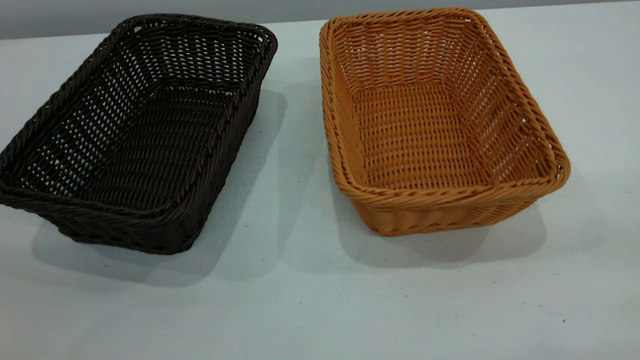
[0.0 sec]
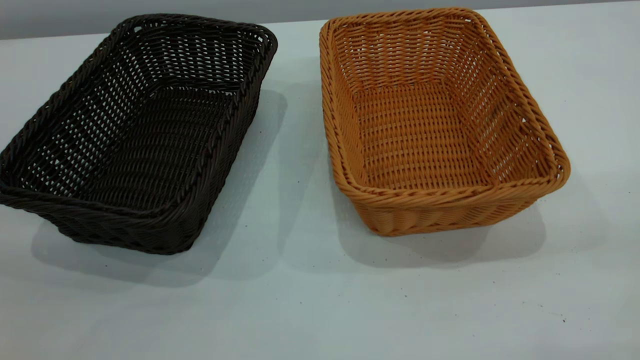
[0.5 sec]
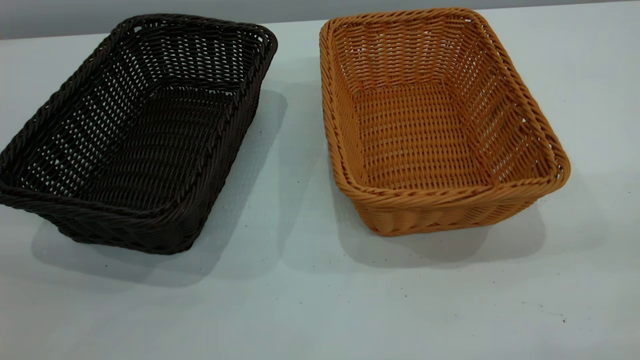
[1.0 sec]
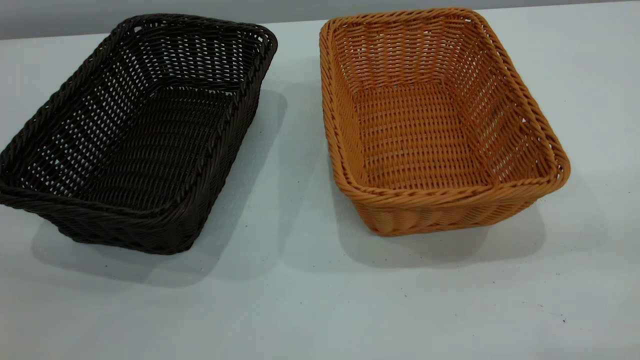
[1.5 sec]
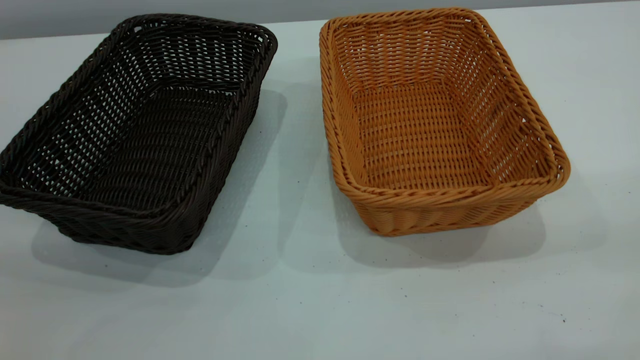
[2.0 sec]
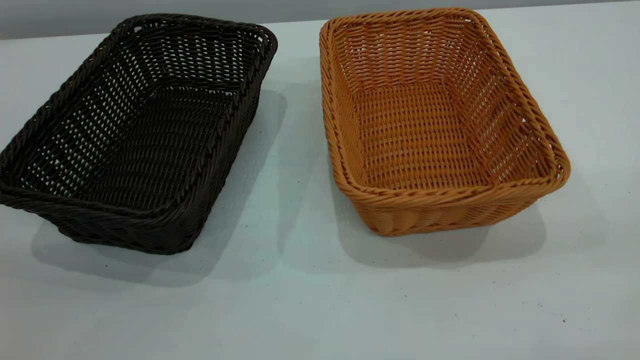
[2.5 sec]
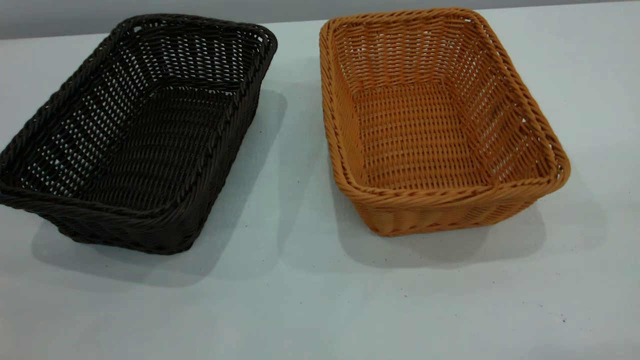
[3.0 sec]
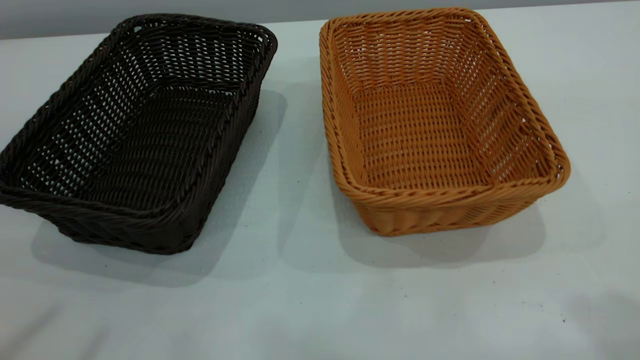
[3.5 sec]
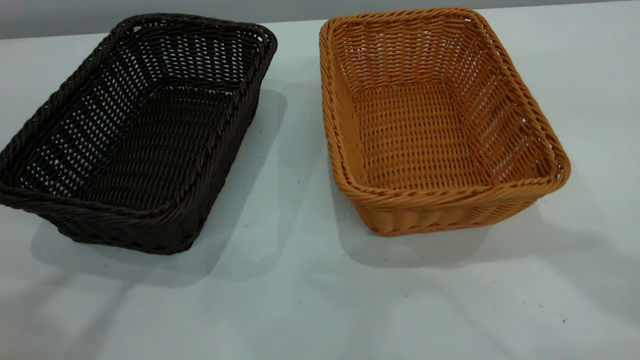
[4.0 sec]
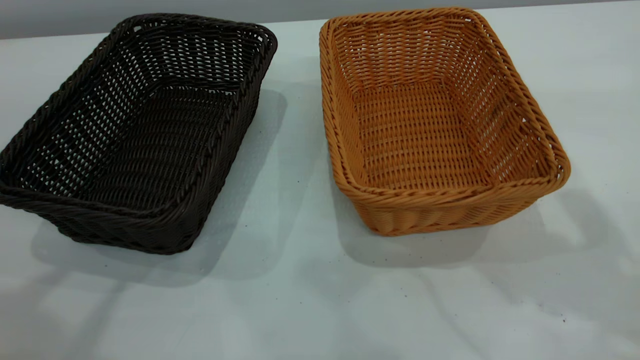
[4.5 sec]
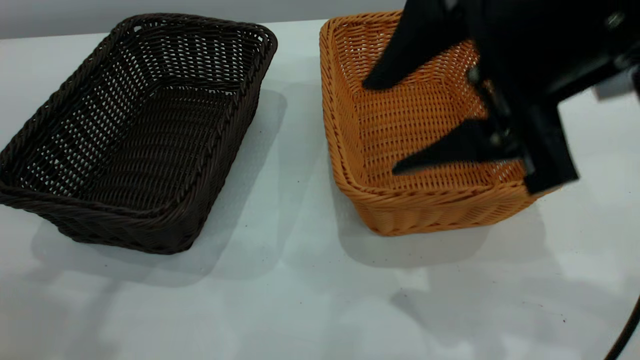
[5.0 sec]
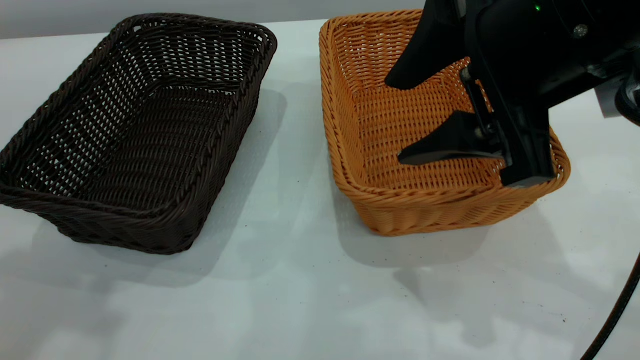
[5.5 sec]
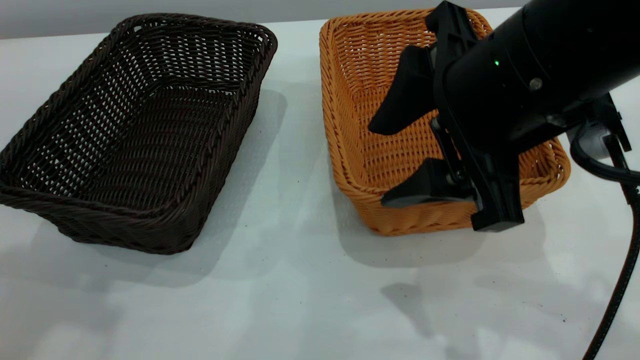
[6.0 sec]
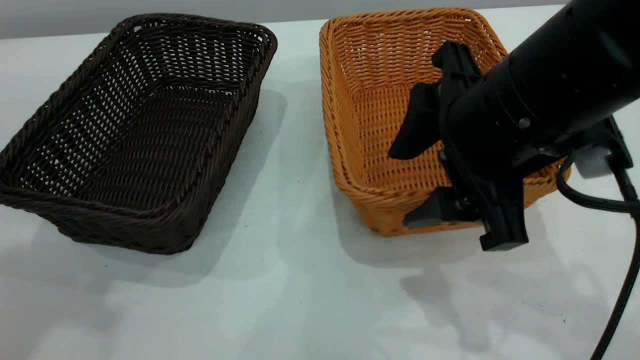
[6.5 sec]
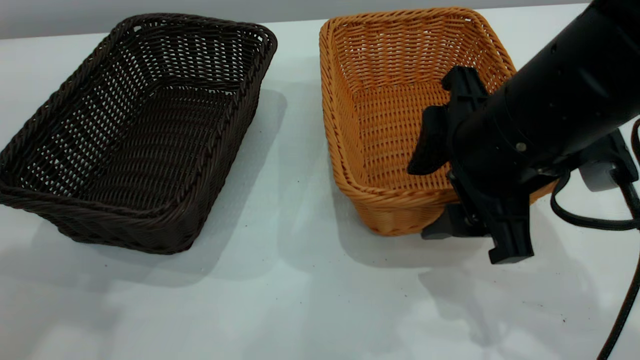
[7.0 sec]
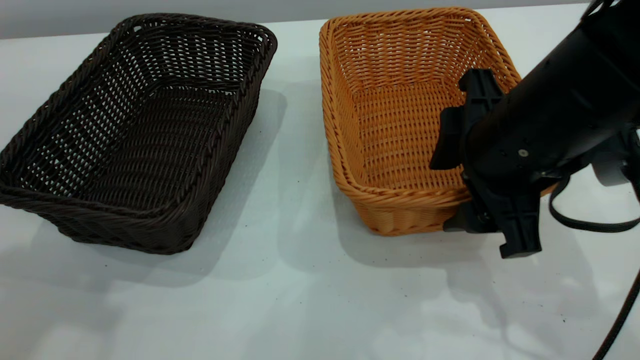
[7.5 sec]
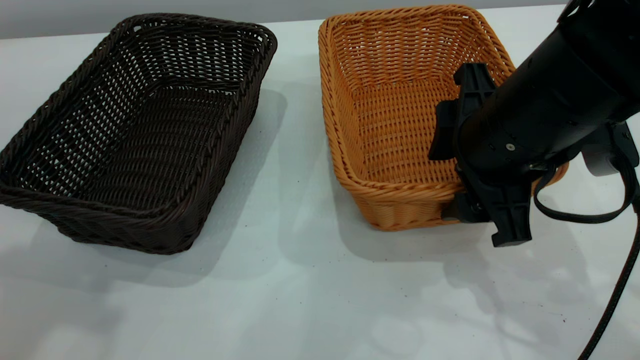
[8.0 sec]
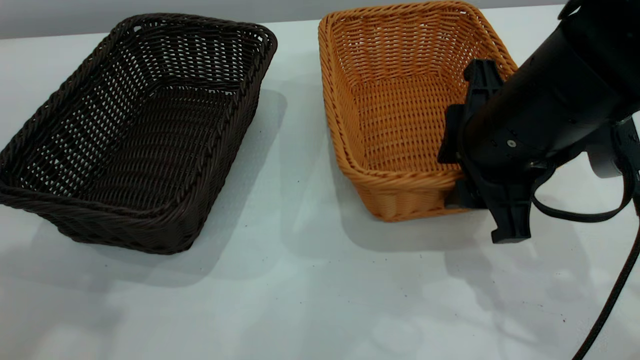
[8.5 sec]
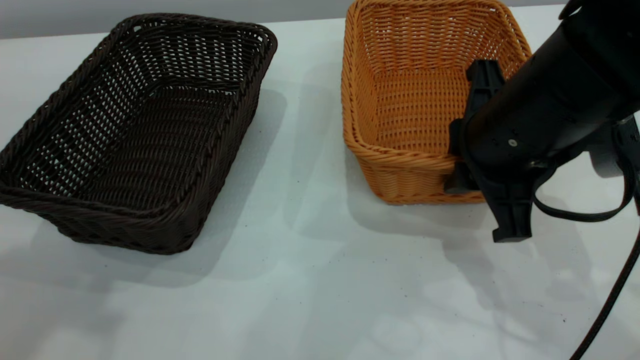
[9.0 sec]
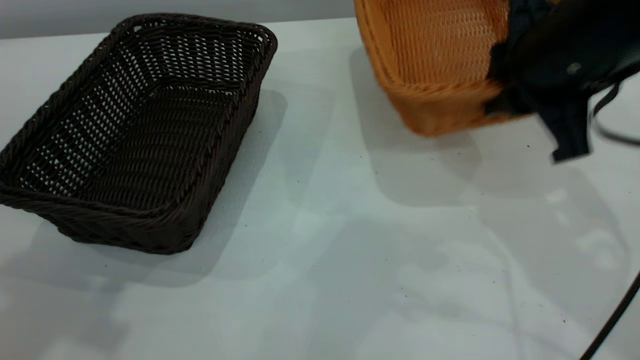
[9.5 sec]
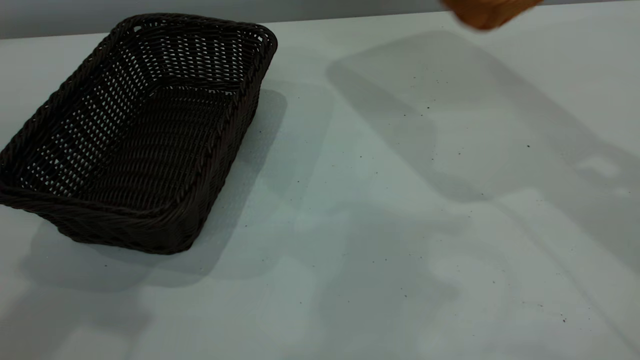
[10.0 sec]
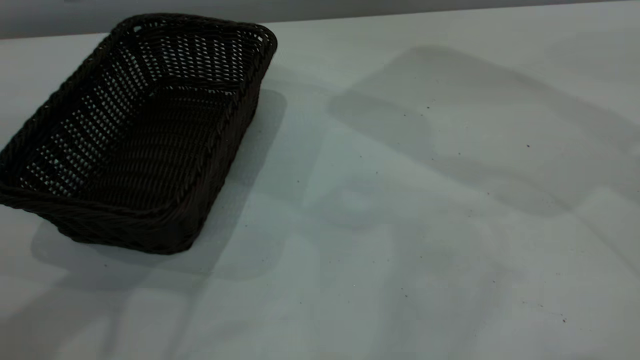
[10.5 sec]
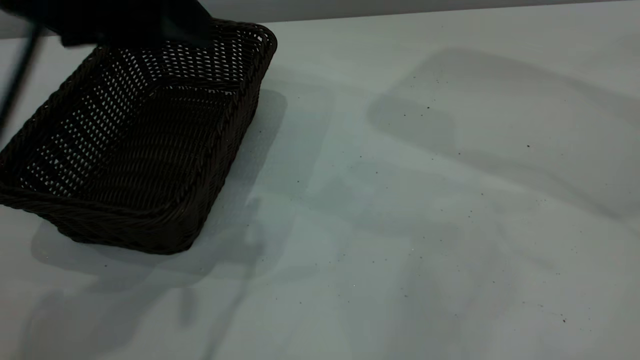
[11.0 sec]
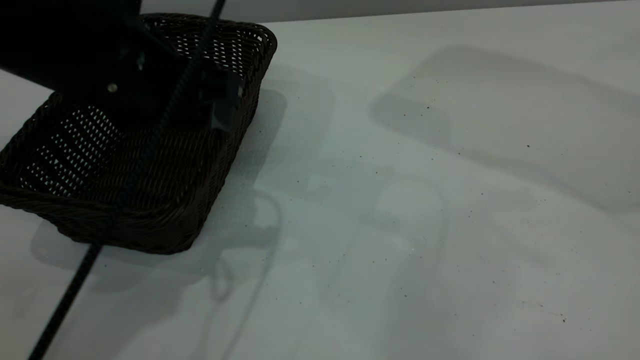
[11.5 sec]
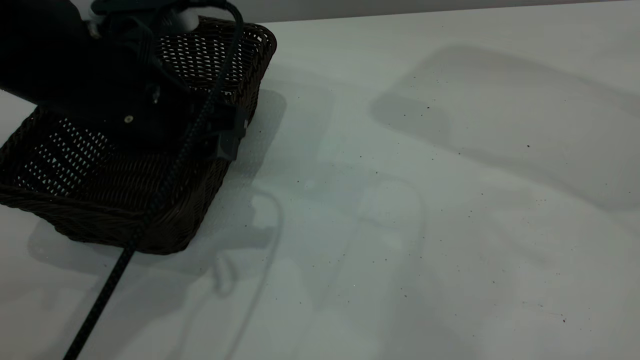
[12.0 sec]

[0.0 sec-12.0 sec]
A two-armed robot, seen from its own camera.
Task of the whole recording: the left gripper grasp the black basket and place it in the center of the table, the right gripper grasp the brown basket and place it inside the black one.
Step, 0.0 sec to 9.5 sec: Pick up the light basket with the right gripper.
0.0 sec to 2.0 sec: Neither gripper changes place.
4.0 sec to 6.0 sec: The right gripper is displaced downward and to the left by about 20 cm.
6.0 sec to 8.0 sec: The right gripper shifts about 5 cm downward.
8.0 sec to 10.0 sec: The right gripper goes some 15 cm upward and to the right, and closes its fingers.
10.0 sec to 12.0 sec: The right gripper is displaced to the right and upward by approximately 15 cm, while the left gripper moves downward, to the right and forward, some 25 cm.

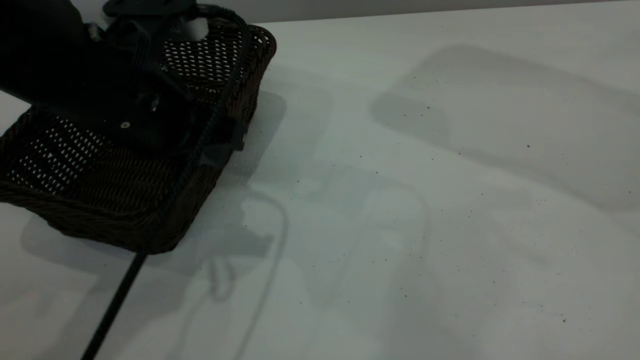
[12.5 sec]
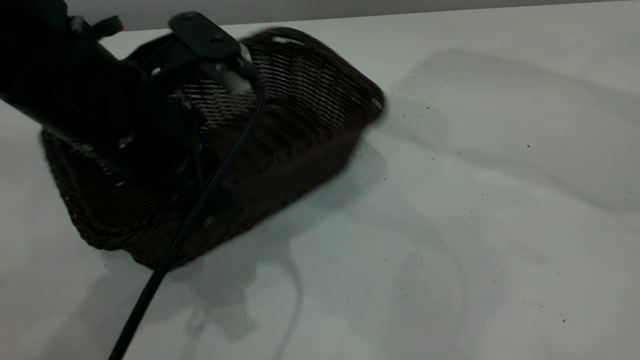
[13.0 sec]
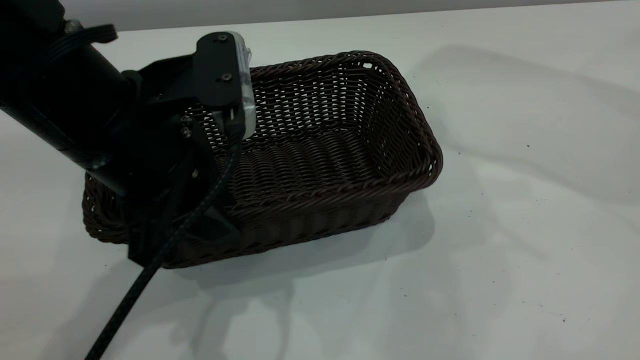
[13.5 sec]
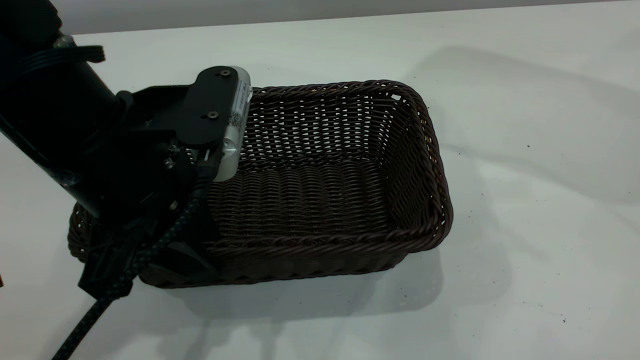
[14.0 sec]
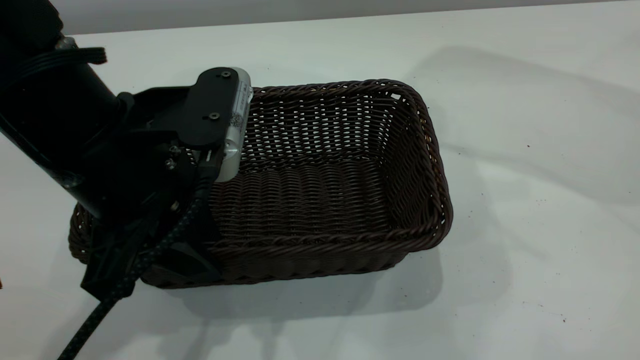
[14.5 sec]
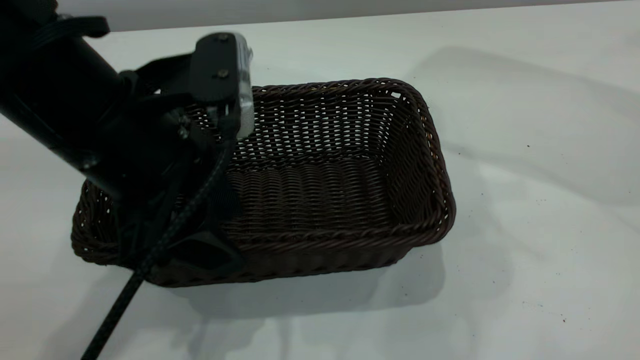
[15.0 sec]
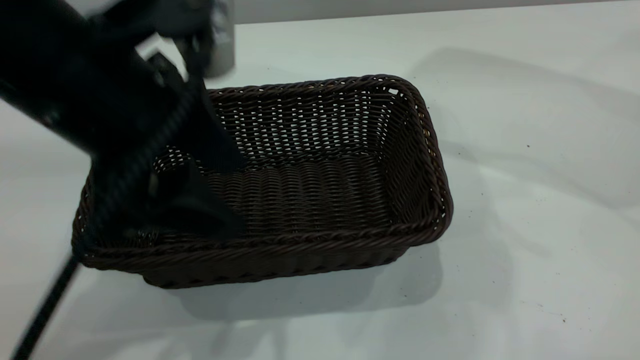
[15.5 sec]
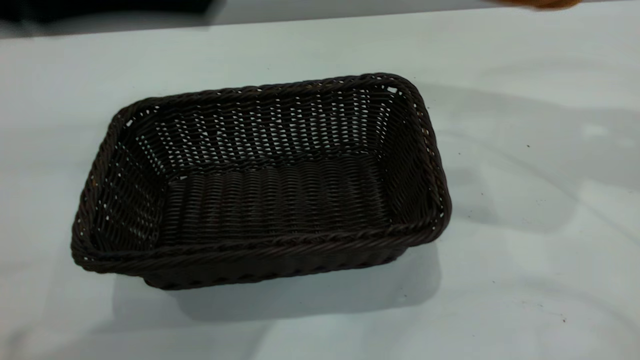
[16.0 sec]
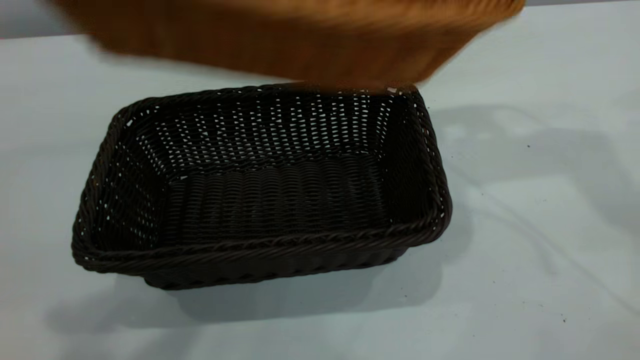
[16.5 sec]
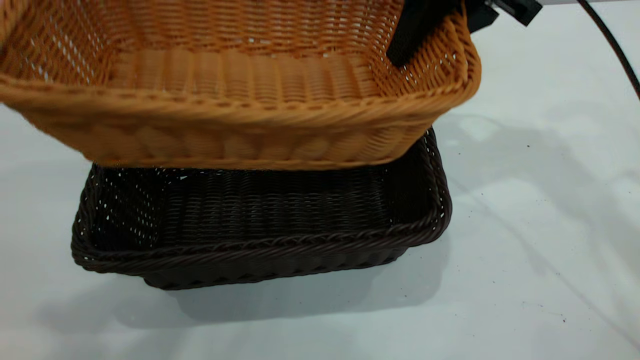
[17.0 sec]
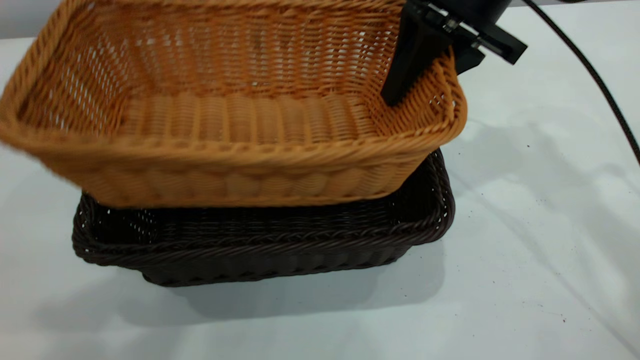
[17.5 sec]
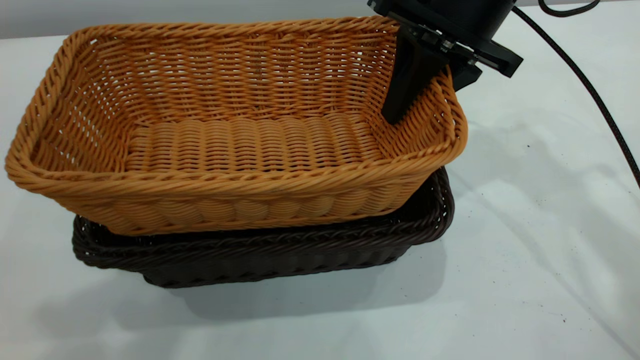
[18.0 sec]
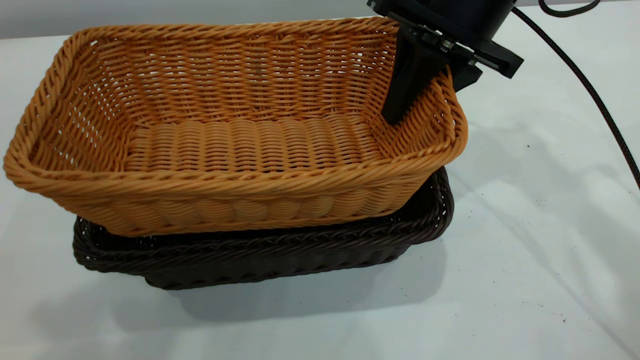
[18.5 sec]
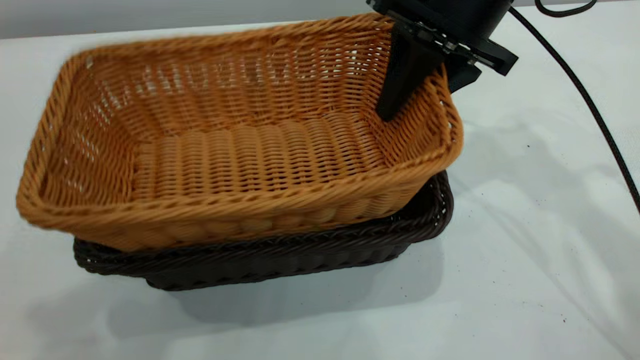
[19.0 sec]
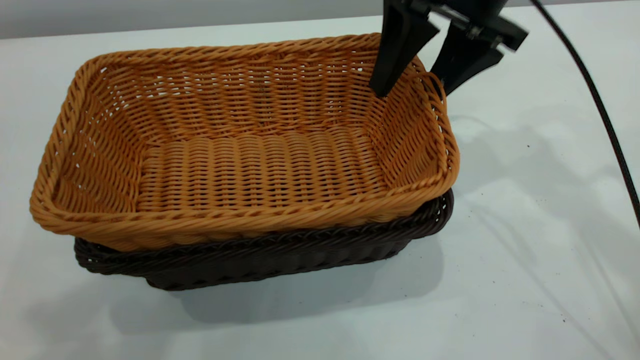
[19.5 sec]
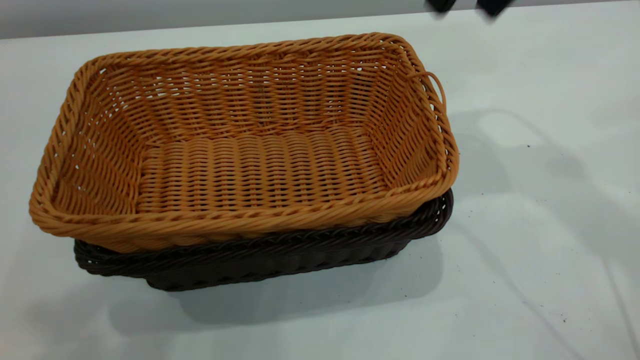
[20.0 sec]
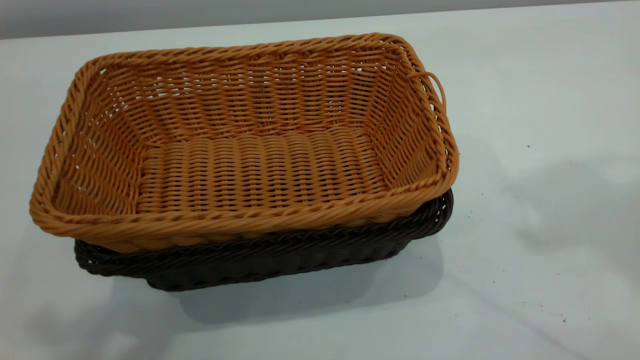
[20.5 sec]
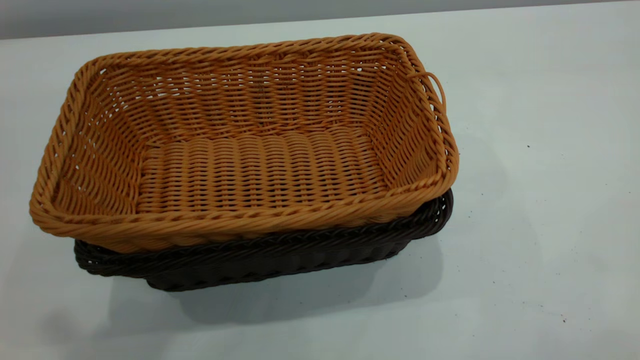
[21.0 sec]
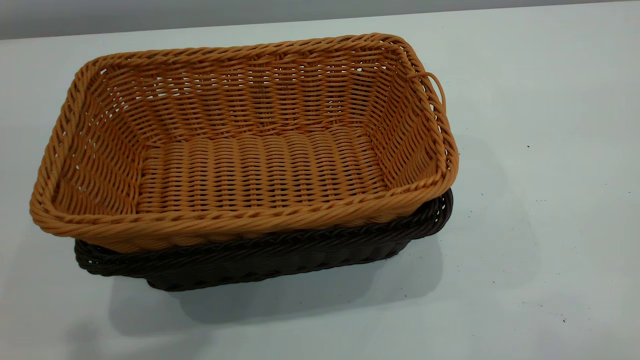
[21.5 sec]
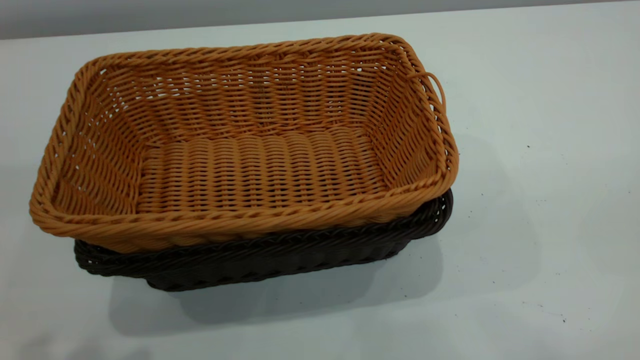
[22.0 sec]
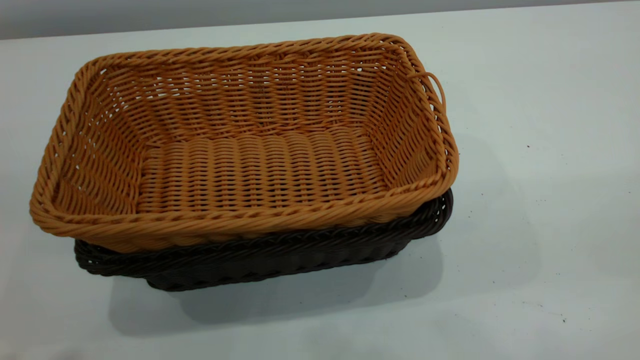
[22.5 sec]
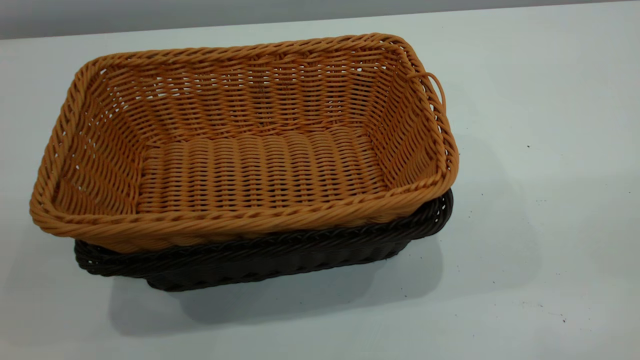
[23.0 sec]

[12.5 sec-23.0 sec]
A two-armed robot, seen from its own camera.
Task of the whole recording: the left gripper grasp the black basket and place it in the center of the table, the right gripper grasp the brown basket and place it inside the black one.
Step, 12.5 sec to 15.5 sec: Move the dark basket to the center of view.
Step, 16.0 sec to 19.5 sec: Place the light basket on the dark basket.
12.5 sec to 14.5 sec: The left gripper travels backward by roughly 5 cm.
14.5 sec to 16.5 sec: The right gripper moves to the left and downward, approximately 20 cm, while the left gripper heads upward, covering roughly 25 cm, and opens its fingers.
16.5 sec to 19.0 sec: The right gripper travels downward by roughly 10 cm.
19.0 sec to 21.0 sec: The left gripper closes. The right gripper goes approximately 50 cm upward, backward and to the right, and opens, then closes again.
